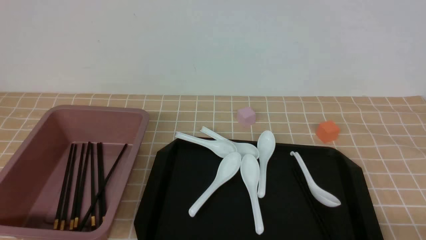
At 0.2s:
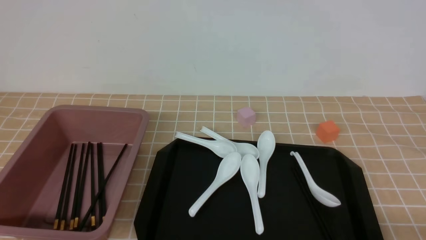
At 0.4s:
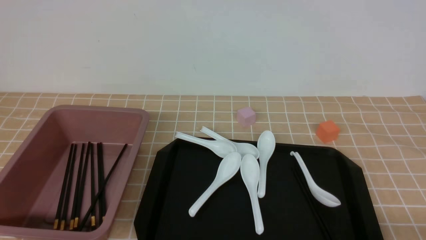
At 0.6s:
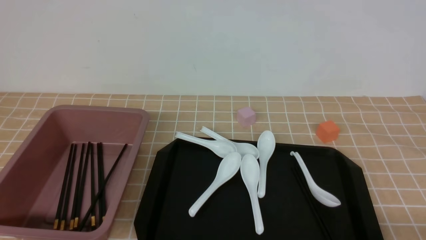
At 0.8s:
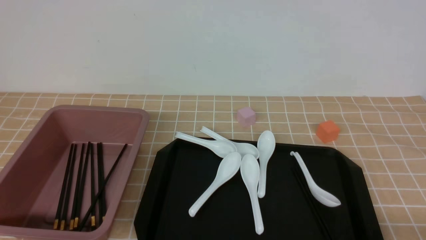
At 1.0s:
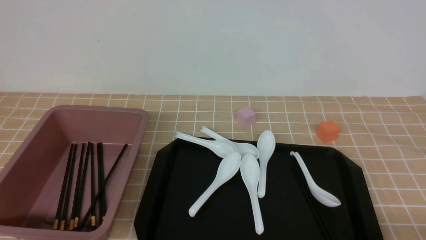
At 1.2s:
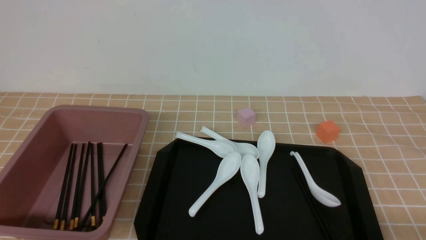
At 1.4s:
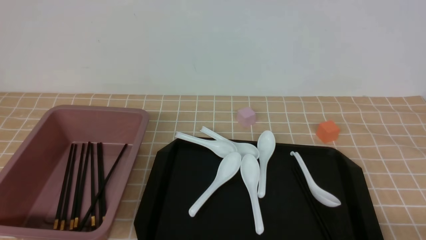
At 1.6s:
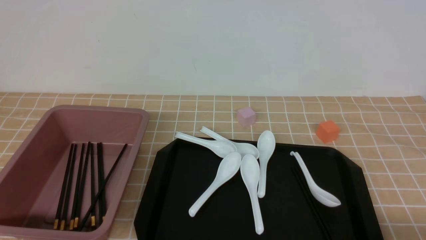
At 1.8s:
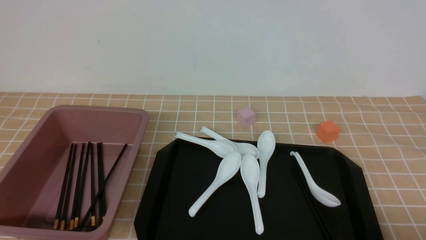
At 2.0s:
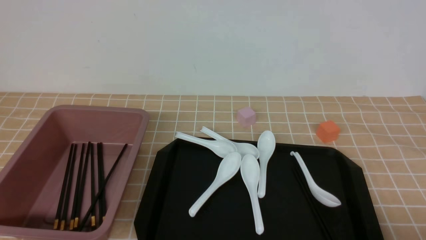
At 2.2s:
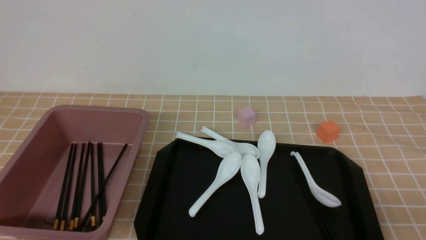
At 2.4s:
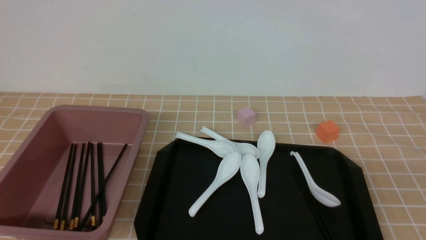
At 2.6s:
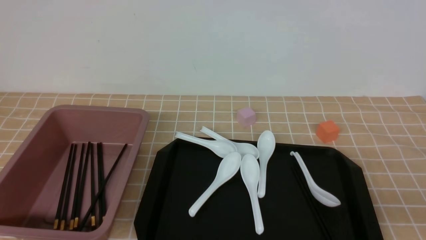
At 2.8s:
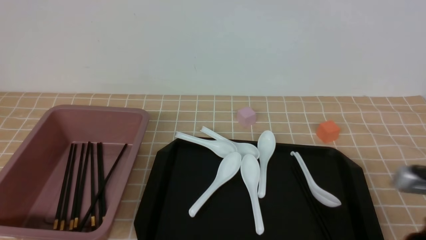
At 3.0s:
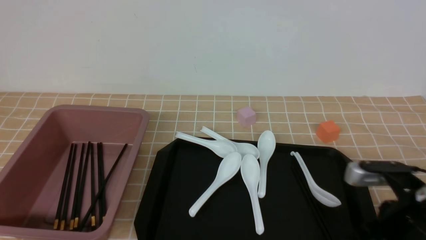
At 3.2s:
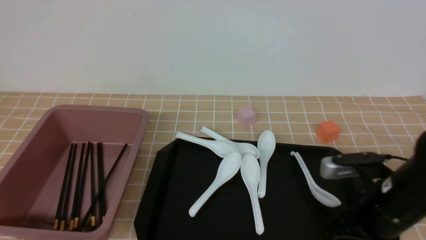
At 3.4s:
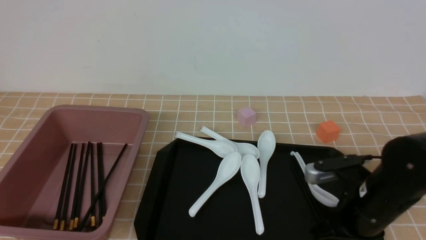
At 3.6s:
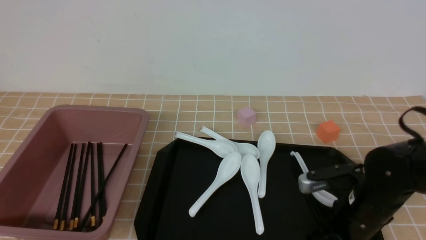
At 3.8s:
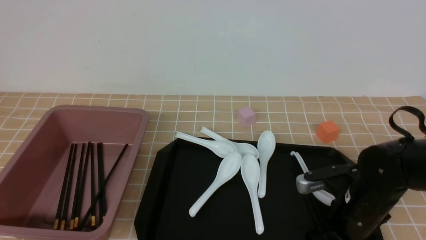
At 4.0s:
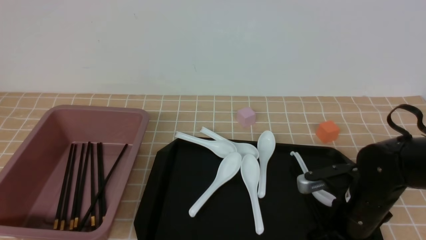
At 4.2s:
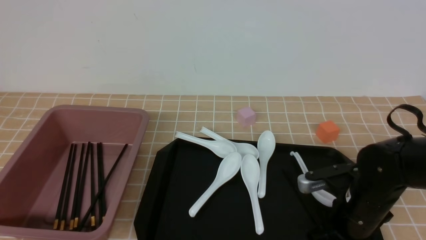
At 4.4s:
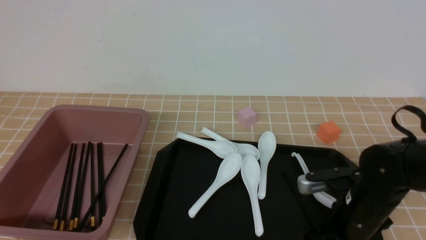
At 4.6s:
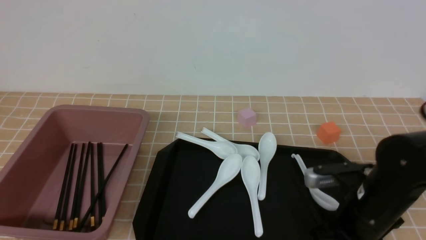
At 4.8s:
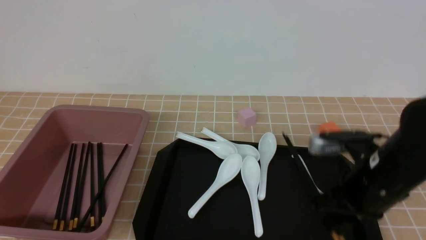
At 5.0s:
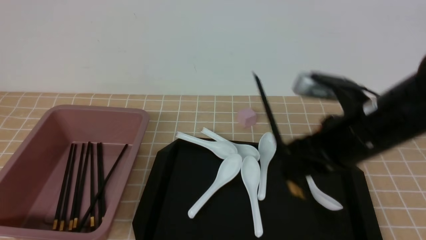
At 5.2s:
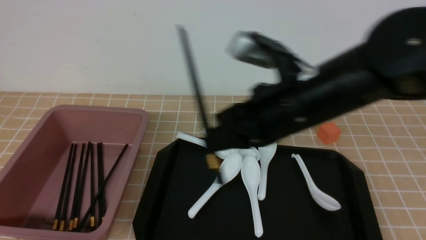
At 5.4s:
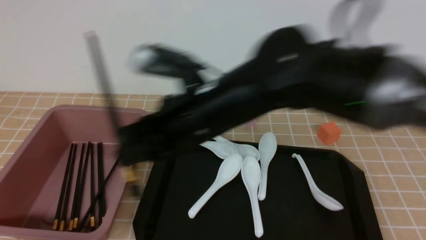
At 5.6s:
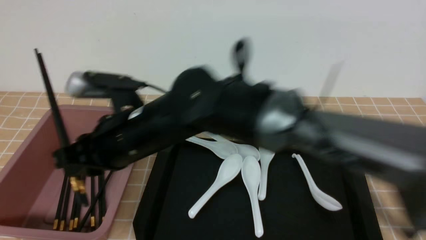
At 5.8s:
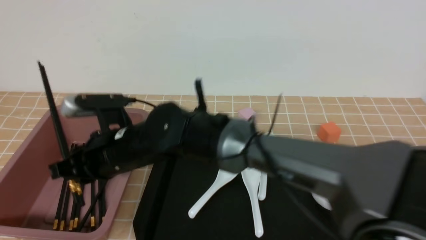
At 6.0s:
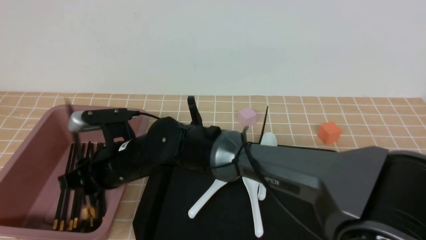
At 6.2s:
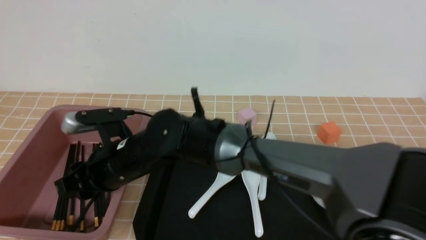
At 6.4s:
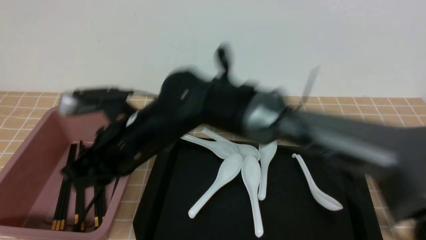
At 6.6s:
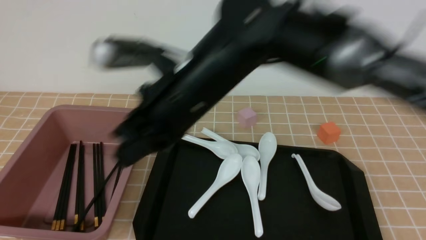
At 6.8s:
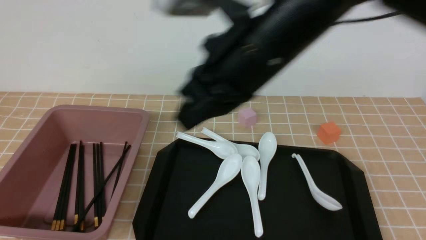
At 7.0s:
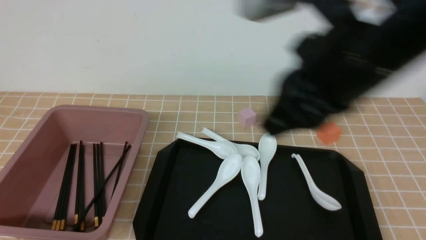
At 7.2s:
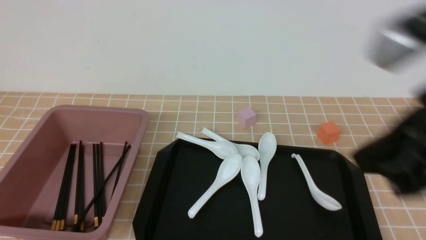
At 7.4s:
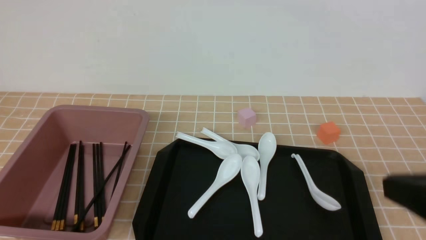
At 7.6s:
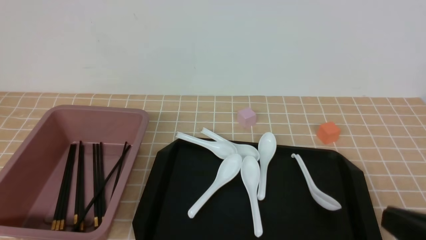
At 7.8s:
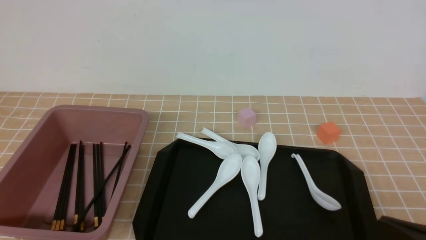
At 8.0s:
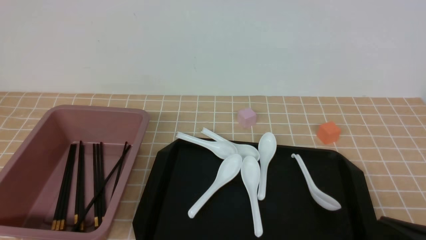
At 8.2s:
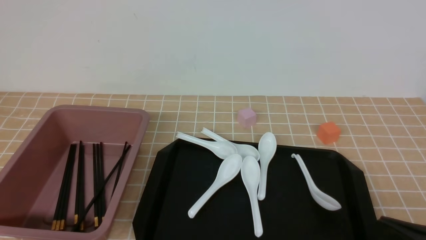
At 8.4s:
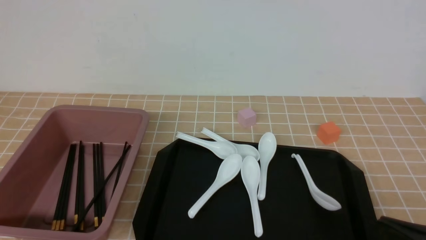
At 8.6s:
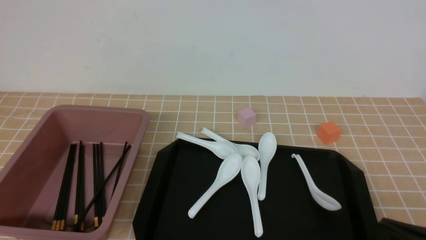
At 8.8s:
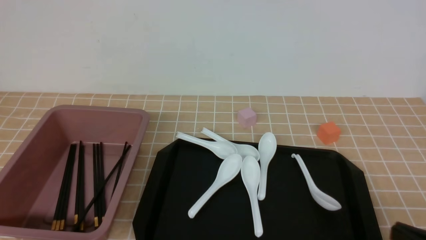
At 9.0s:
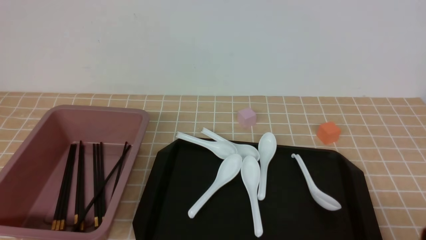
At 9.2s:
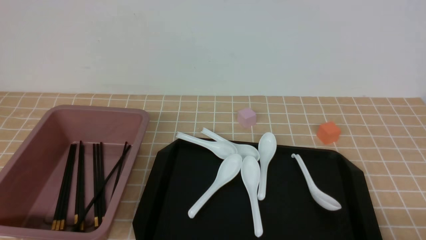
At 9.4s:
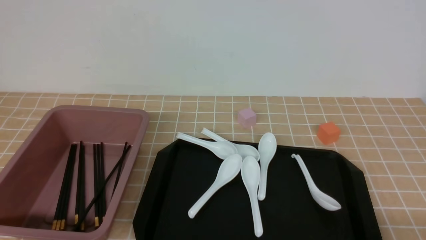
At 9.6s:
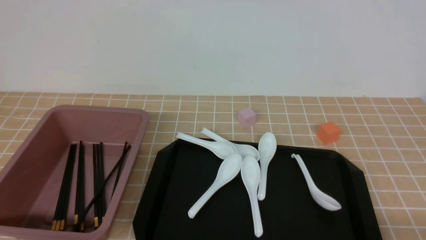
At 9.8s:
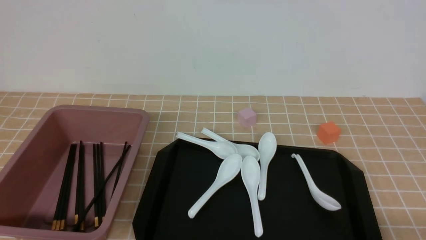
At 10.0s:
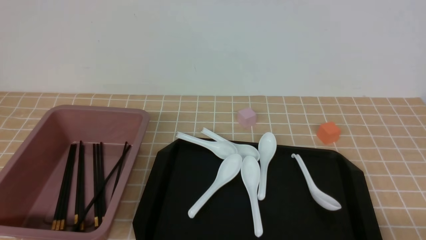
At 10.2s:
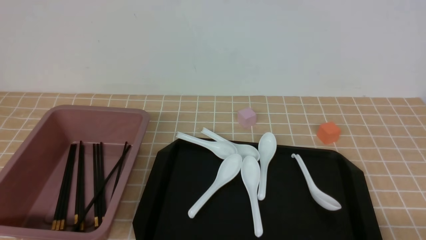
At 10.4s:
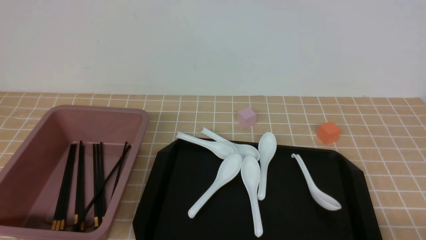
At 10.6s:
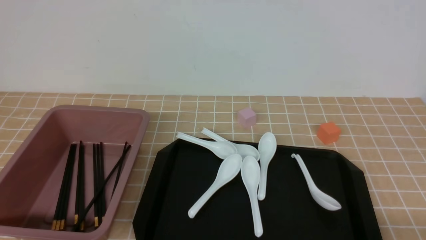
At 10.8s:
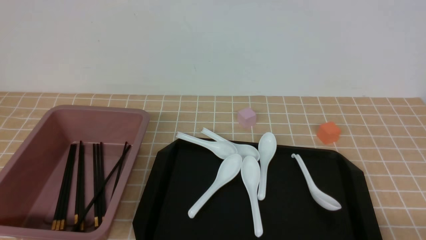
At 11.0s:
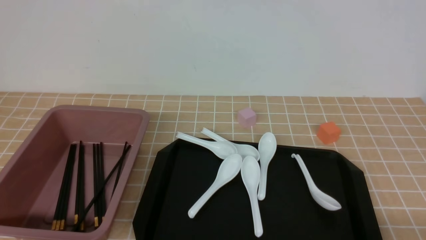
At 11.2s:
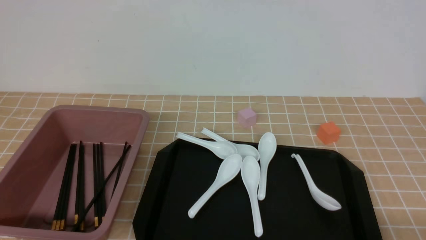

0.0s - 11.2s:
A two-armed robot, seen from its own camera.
Step, 0.0s - 4.6s: use the right arm to grab a pair of chopsticks.
Step, 5.0s - 6.4s: use the right arm to put the chopsticks into the lunch box.
1.6s - 3.2s: The right gripper goes some 20 cm forward and to the left, and closes and opens again.
3.2s - 4.8s: The right gripper ends up roughly 5 cm from where it was, and closes up.
4.8s - 6.4s: The right gripper is displaced to the left by some 25 cm.
6.4s - 8.0s: The right gripper heads to the right and backward, covering some 40 cm, and closes up.
8.0s - 9.6s: The right gripper moves downward and to the right, approximately 10 cm.
9.6s - 11.2s: Neither gripper changes place.

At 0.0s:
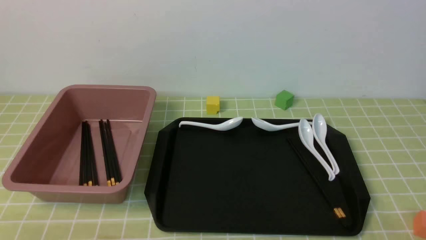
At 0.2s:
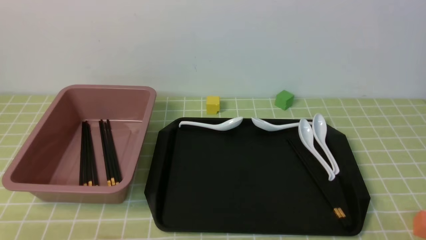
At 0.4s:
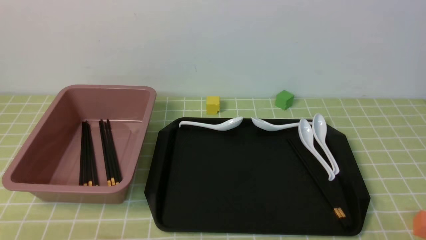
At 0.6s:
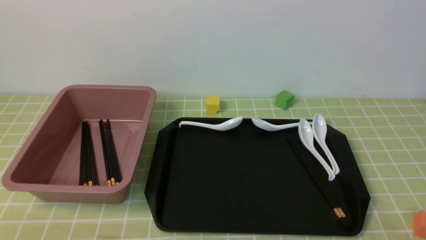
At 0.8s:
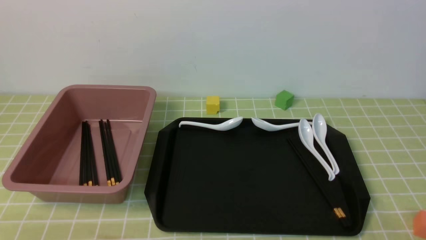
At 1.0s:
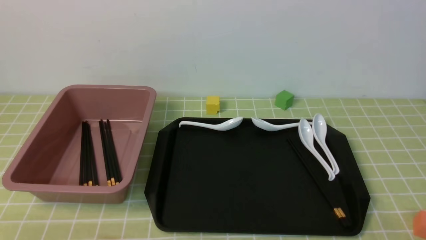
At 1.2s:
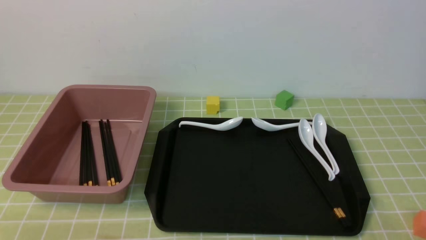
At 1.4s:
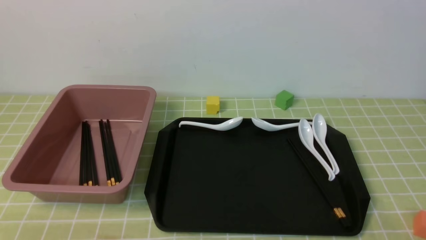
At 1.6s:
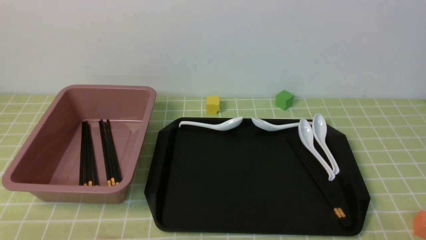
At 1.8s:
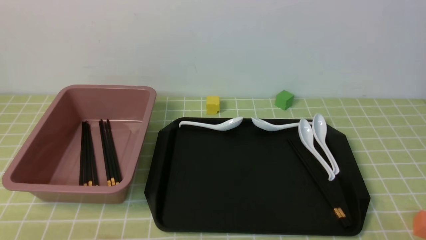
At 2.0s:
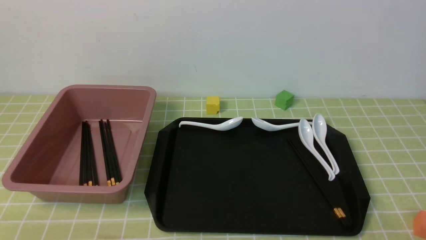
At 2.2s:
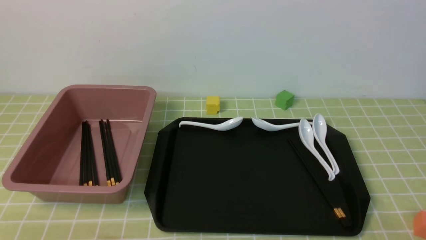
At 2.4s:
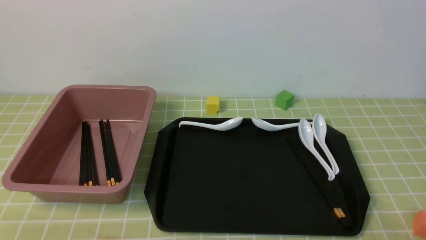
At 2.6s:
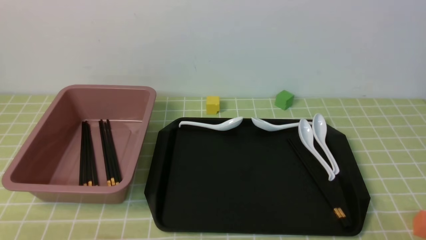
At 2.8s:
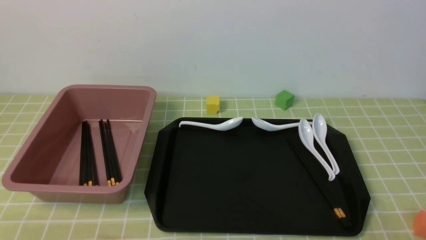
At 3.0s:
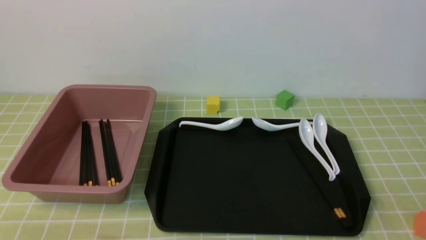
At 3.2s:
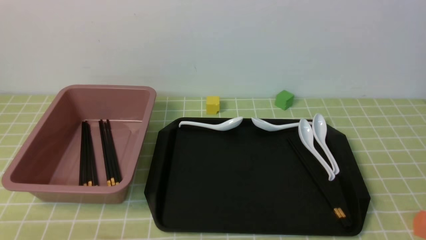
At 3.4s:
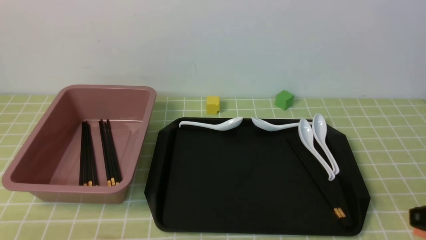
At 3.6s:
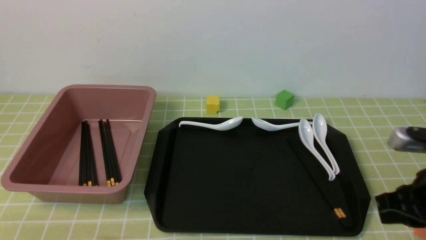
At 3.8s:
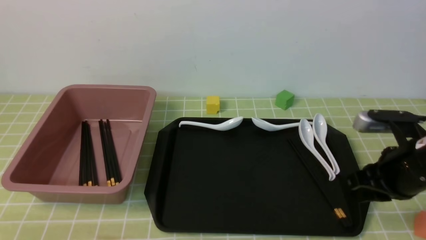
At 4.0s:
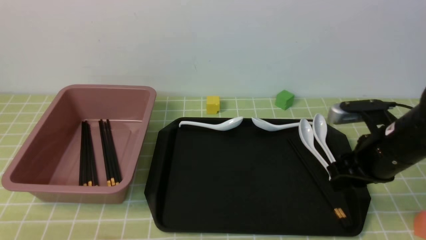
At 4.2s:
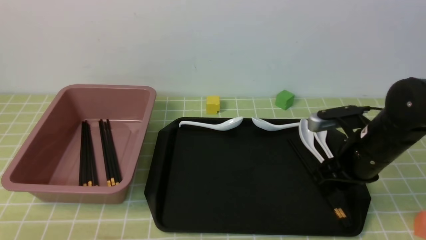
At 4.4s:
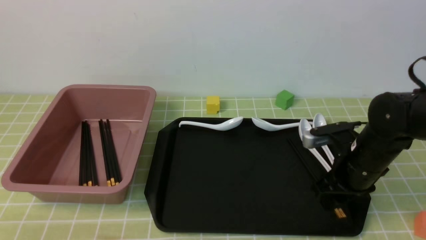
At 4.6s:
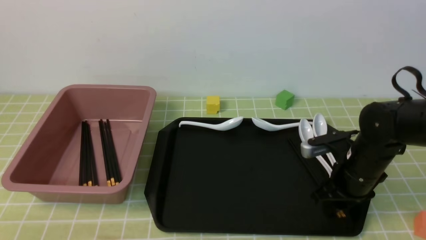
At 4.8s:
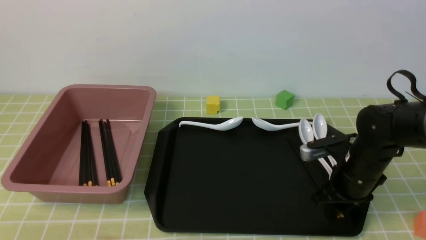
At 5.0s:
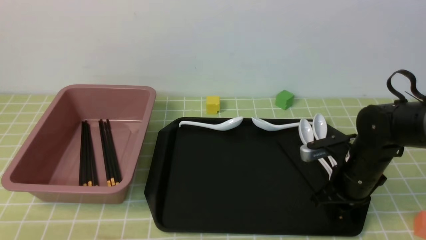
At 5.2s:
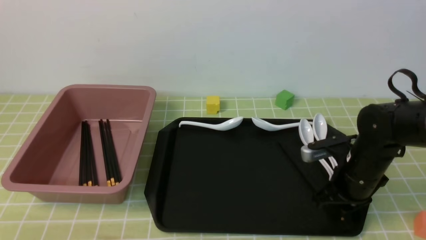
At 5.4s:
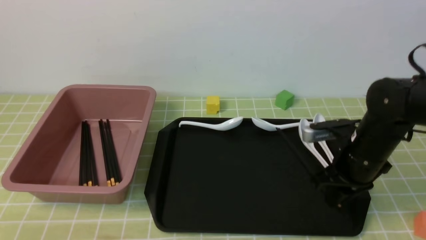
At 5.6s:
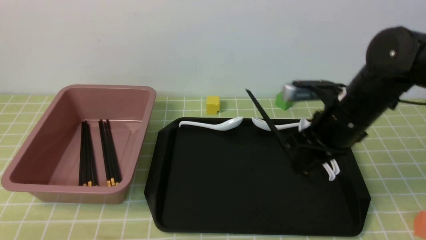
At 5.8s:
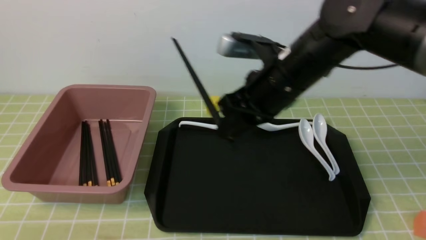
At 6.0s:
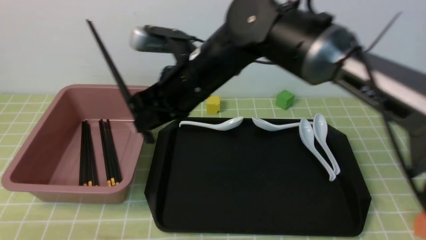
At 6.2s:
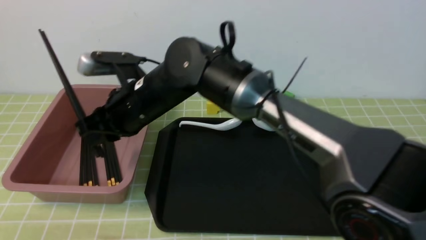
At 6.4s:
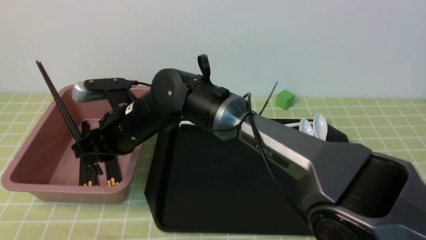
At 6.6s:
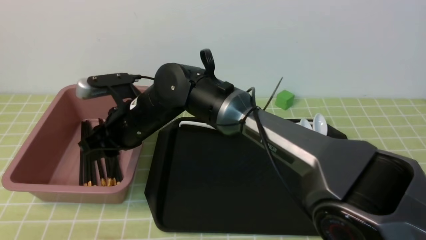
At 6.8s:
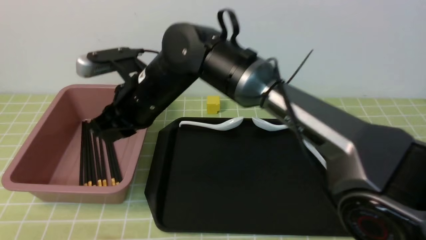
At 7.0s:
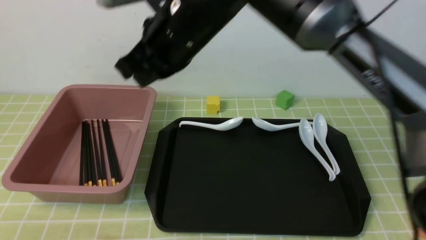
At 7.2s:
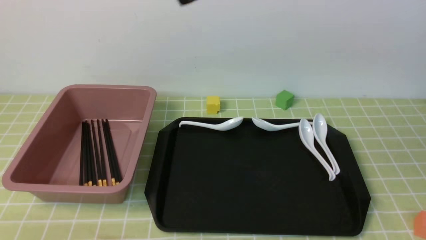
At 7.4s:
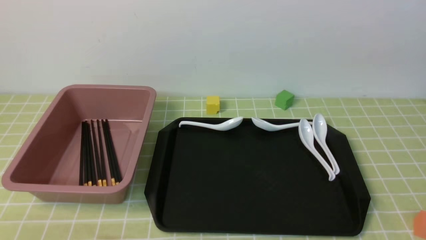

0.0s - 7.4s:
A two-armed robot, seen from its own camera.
Step, 0.0s - 5.4s: use the right arm to grab a pair of chopsticks.
Step, 5.6s - 6.6s: use the right arm to put the chopsticks into the lunch box.
0.0s - 1.4s: Both grippers stay about where they are.
3.0s - 4.4s: The right gripper heads forward, covering some 25 cm, and opens its fingers.
4.4s - 6.0s: The right gripper goes about 30 cm to the left and upward, and closes its fingers.
6.0s - 7.4s: The right gripper shifts roughly 35 cm upward, backward and to the right, and closes.
